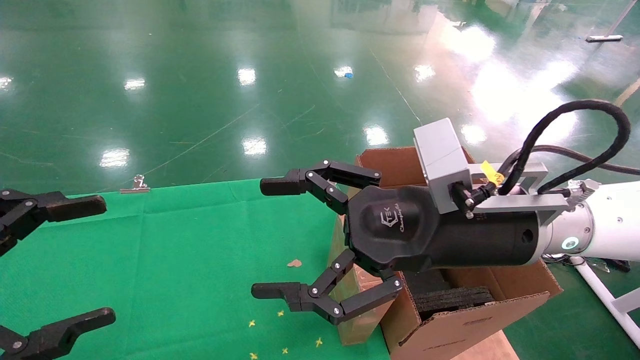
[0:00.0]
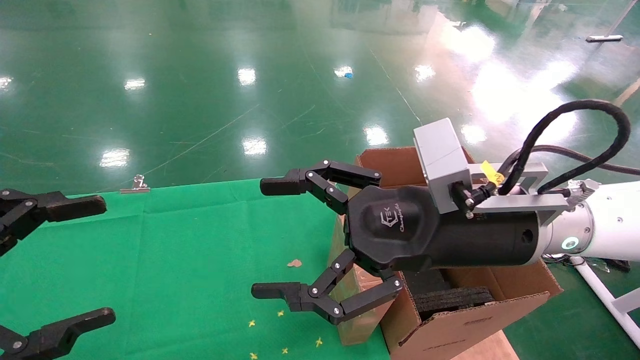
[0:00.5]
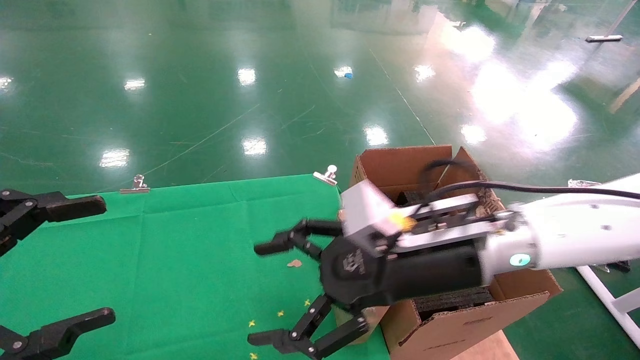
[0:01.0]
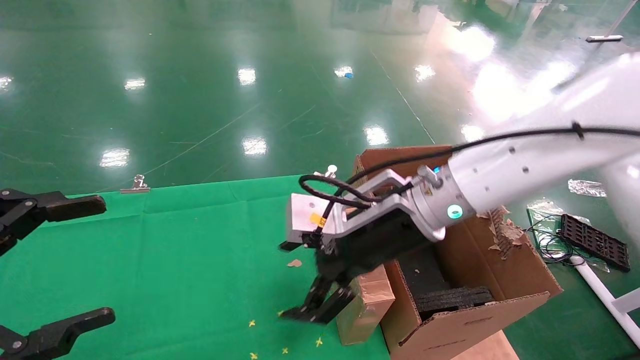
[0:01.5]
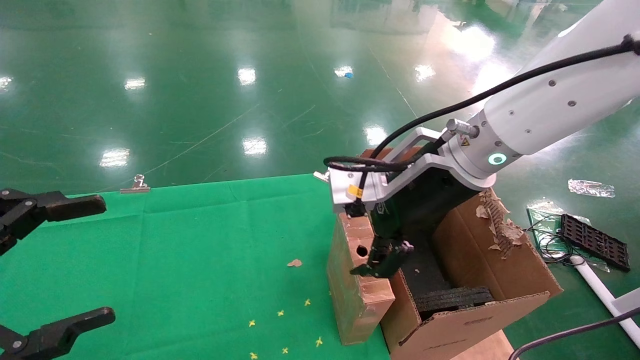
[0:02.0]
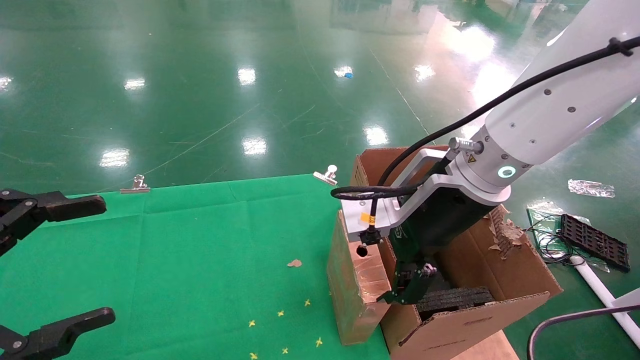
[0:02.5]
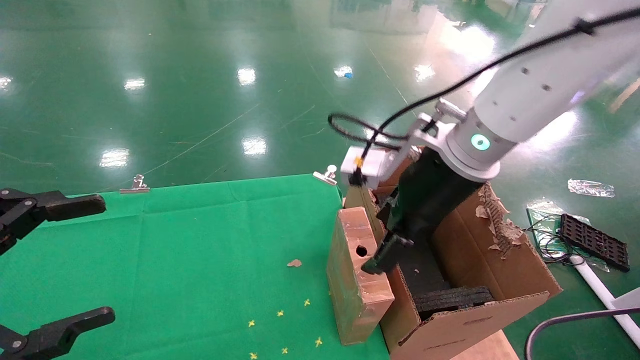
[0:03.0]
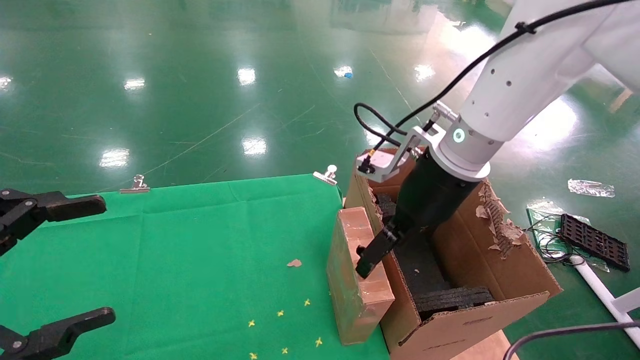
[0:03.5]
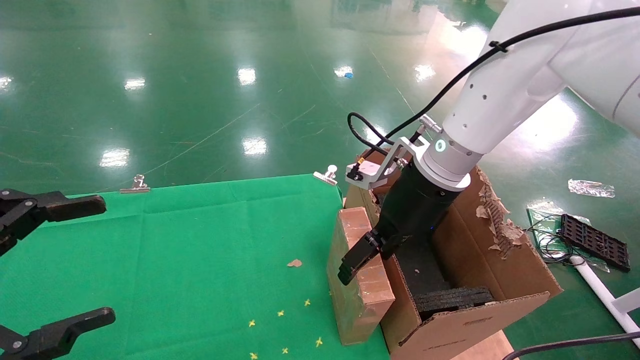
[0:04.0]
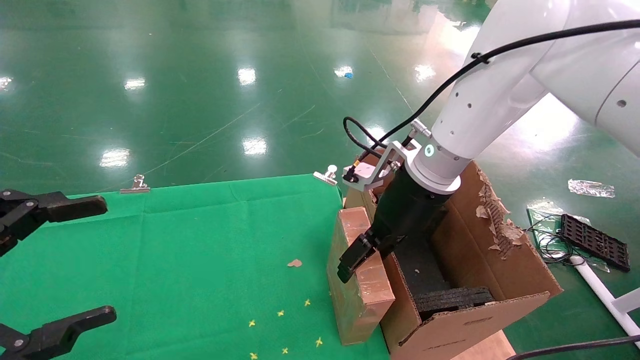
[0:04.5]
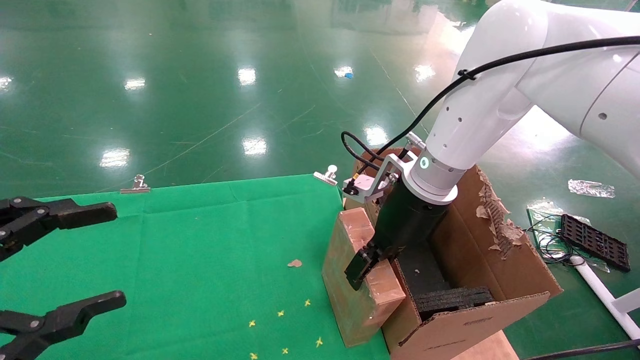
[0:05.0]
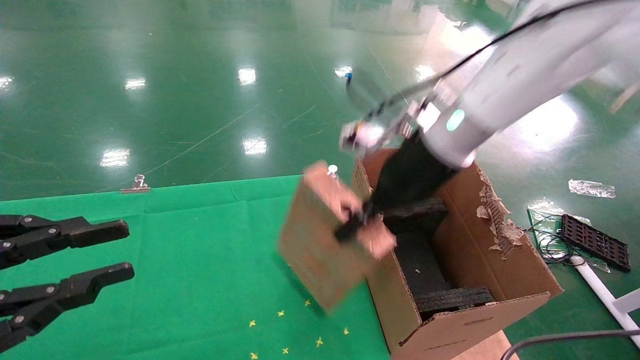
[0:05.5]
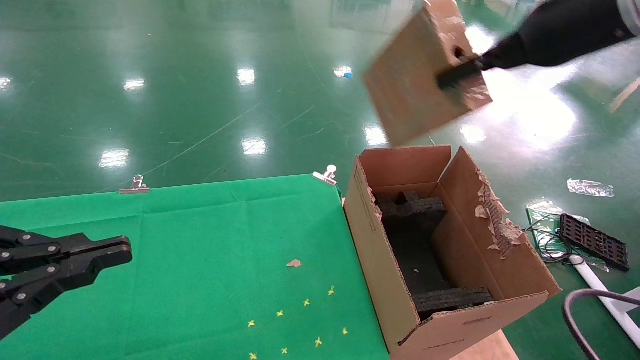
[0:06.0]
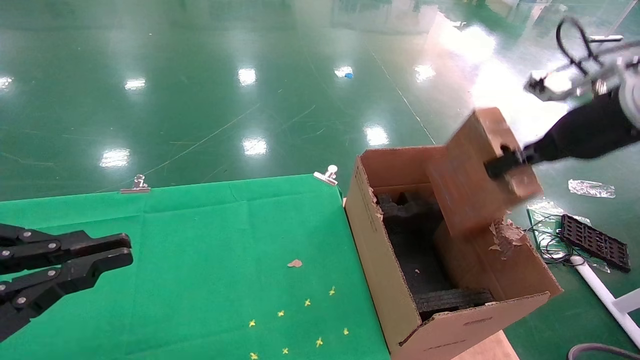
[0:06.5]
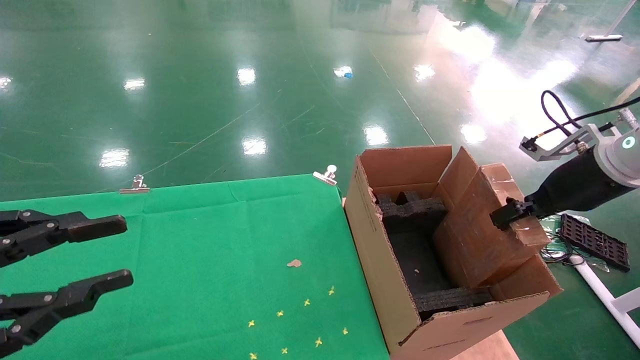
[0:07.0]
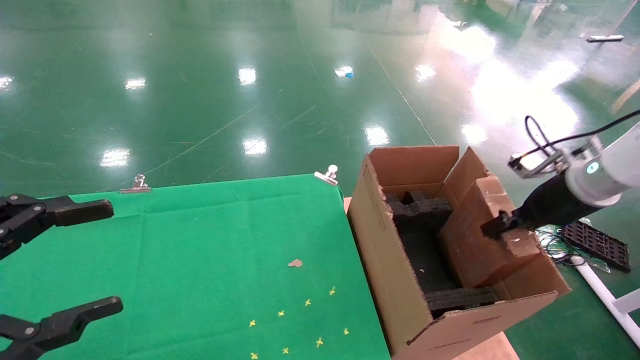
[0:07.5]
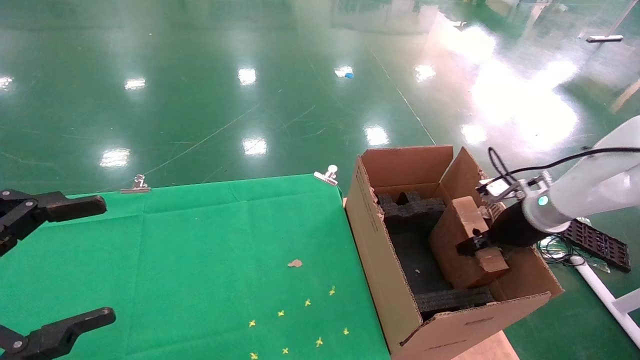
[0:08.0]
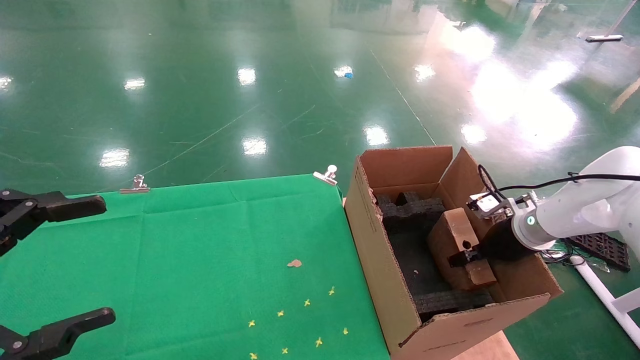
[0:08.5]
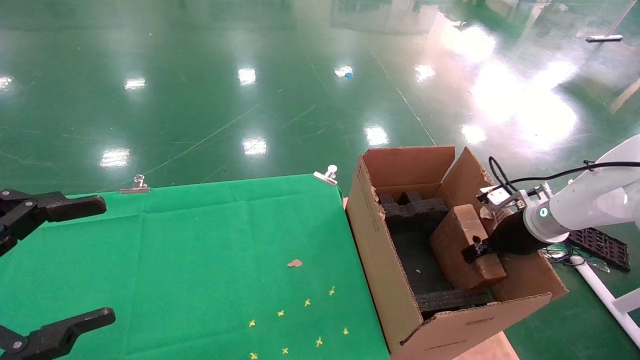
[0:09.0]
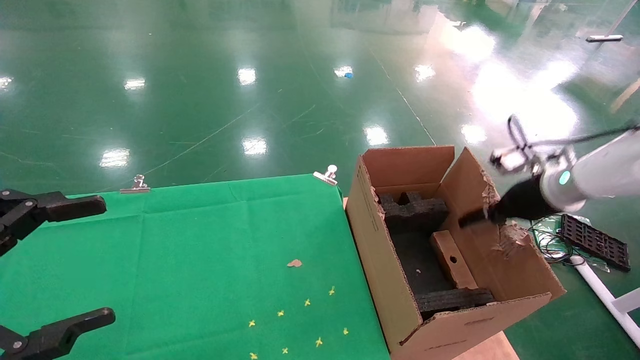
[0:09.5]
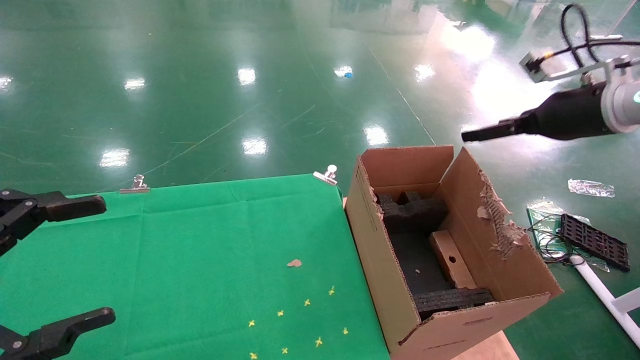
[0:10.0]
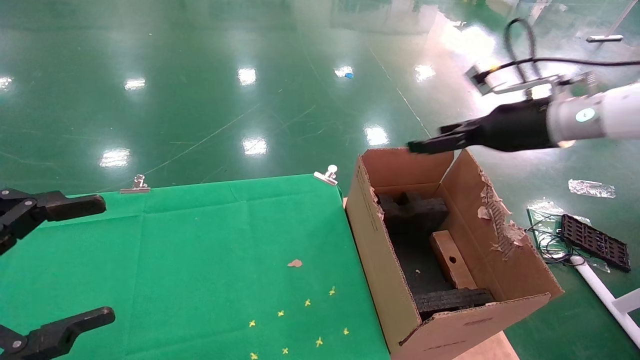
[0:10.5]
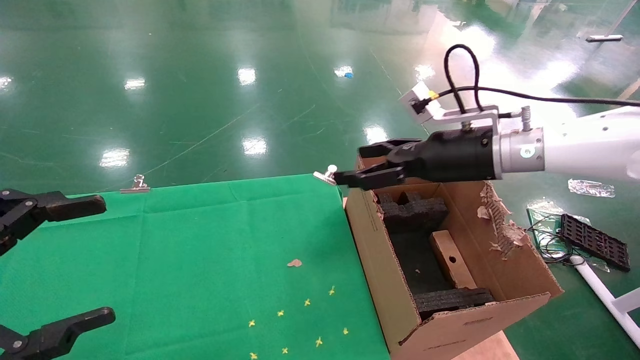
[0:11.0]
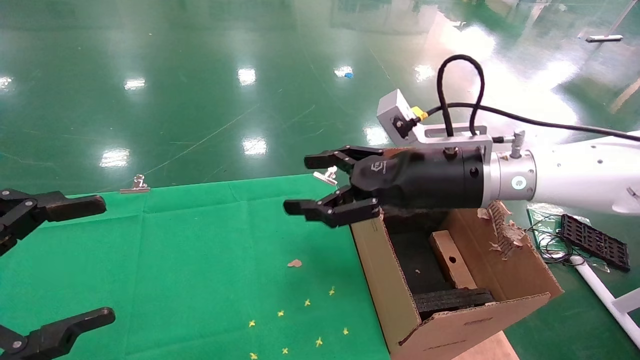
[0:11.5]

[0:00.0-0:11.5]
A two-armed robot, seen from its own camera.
Task of the whole recording: using a robotic arm to pick up a cardboard box and palace it the carton.
Step, 0:01.0 to 0:05.0: Pick up the mouse and the power cord paper box.
Step, 0:05.5 to 0:10.0: Place the mouse and the power cord paper box into the container.
0:00.0 to 0:02.0: The right gripper goes roughly 5 cm forward.
0:02.0 to 0:04.0: The right gripper goes roughly 5 cm forward.
0:04.0 to 0:06.0: The right gripper goes about 20 cm upward and to the right, and closes up. The left gripper closes its fingers.
0:06.0 to 0:07.5: The left gripper opens up. The right gripper travels downward and to the right by approximately 25 cm.
0:07.5 to 0:09.5: The right gripper reaches about 10 cm downward, then returns, and opens its fingers.
0:09.5 to 0:11.5: The right gripper moves to the left, some 20 cm, and opens its fingers.

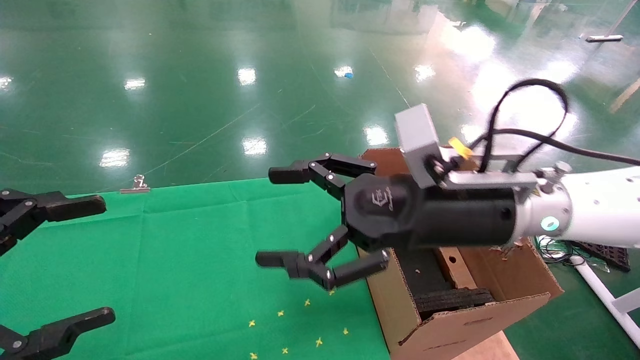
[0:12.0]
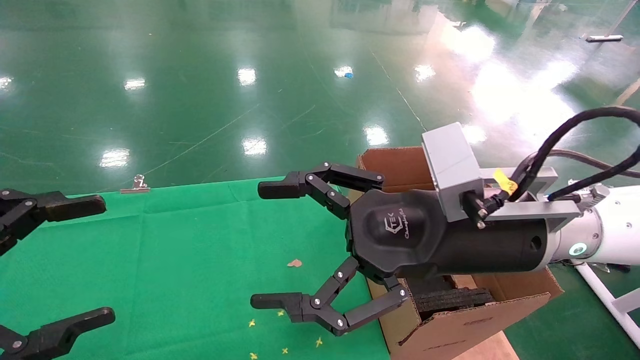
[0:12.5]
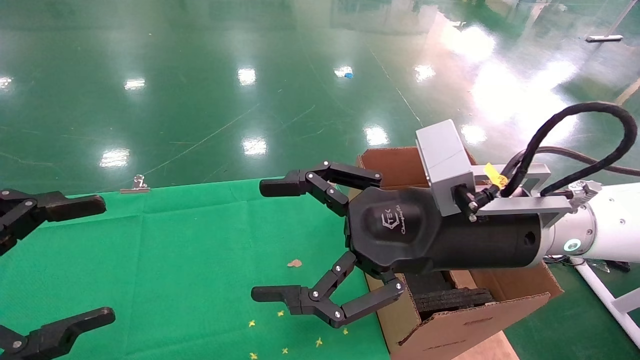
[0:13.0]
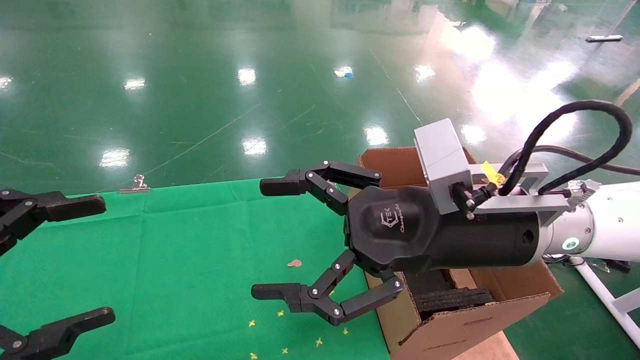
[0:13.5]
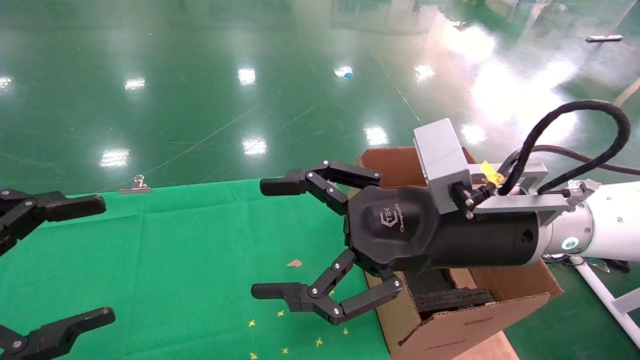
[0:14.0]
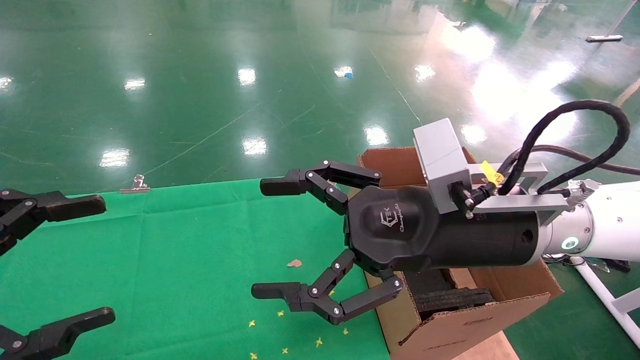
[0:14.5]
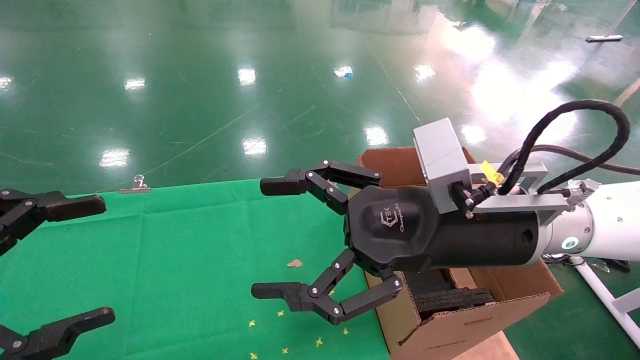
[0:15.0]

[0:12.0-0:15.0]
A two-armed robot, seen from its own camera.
Task of the whole recording: using a robotic arm to pick up a cardboard box and palace it the carton.
0:12.0 to 0:13.5: There are only small adjustments of the grippers.
0:13.5 to 0:15.0: Both grippers stay about where they are.
